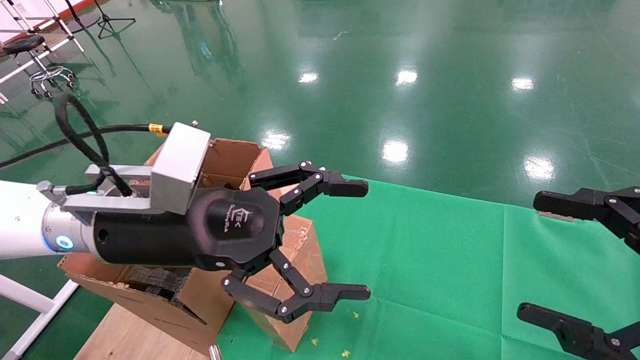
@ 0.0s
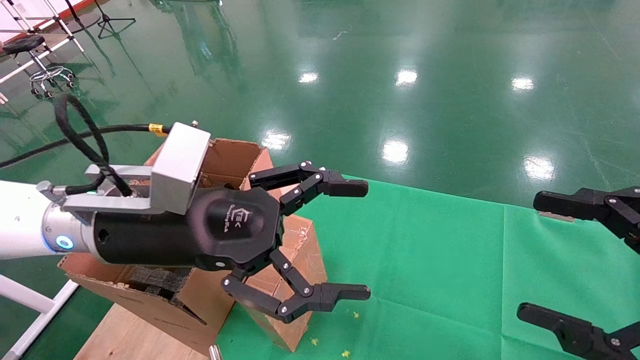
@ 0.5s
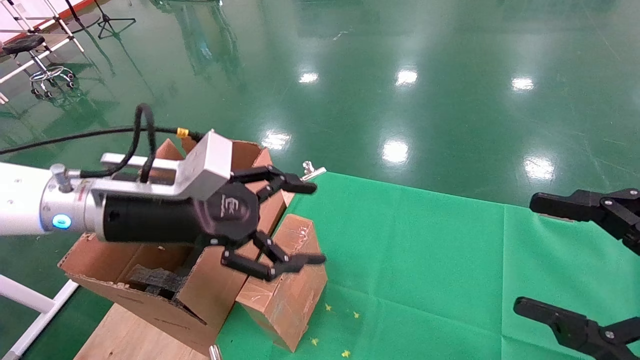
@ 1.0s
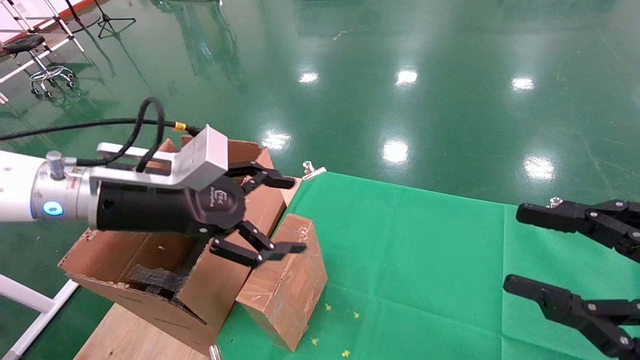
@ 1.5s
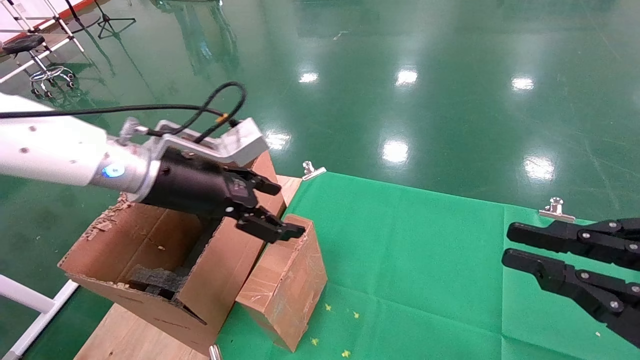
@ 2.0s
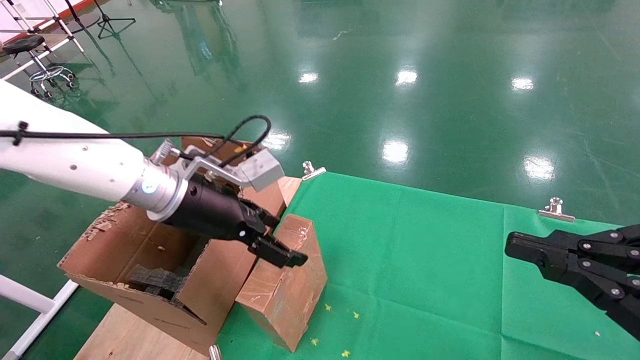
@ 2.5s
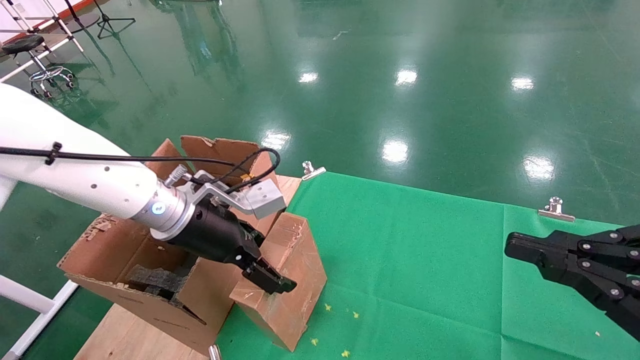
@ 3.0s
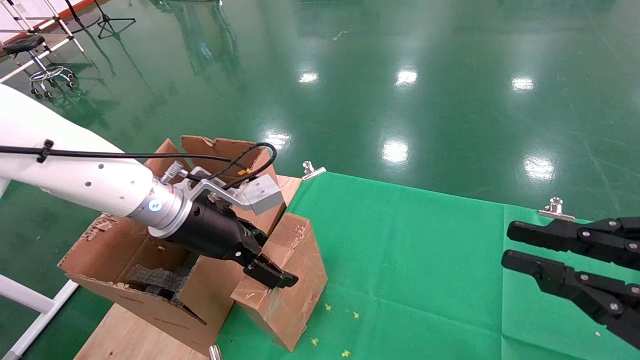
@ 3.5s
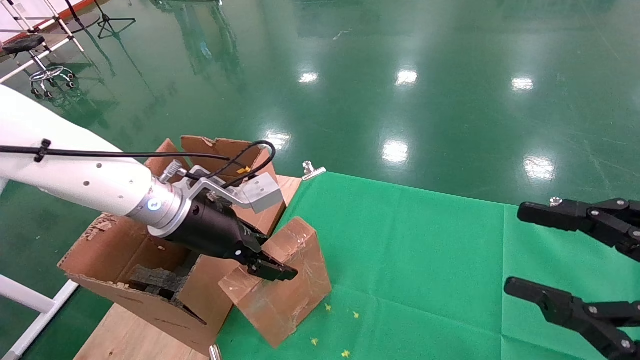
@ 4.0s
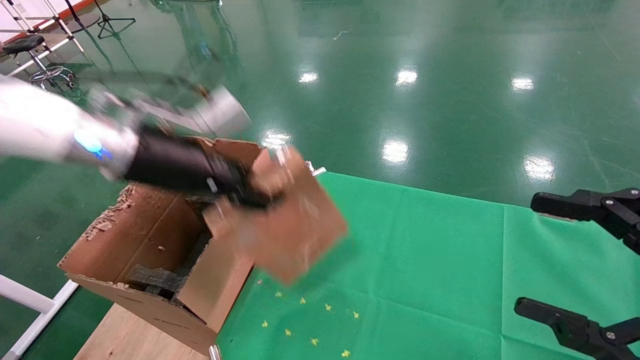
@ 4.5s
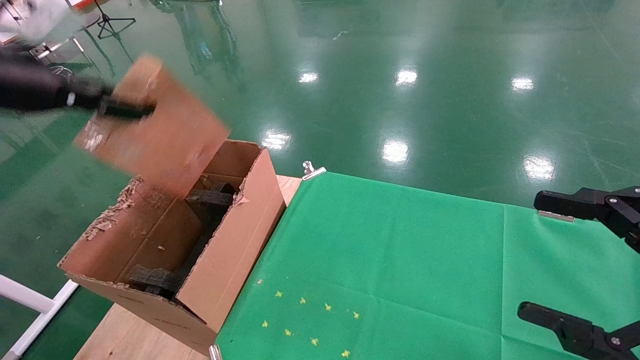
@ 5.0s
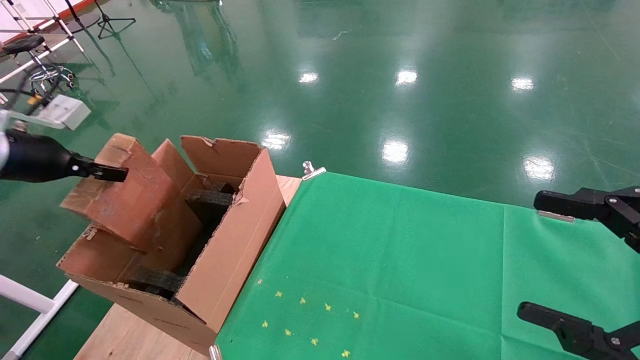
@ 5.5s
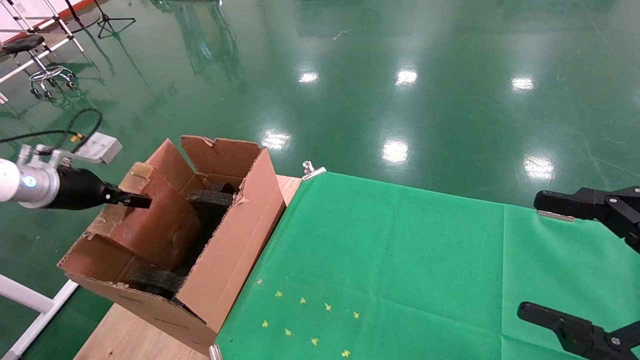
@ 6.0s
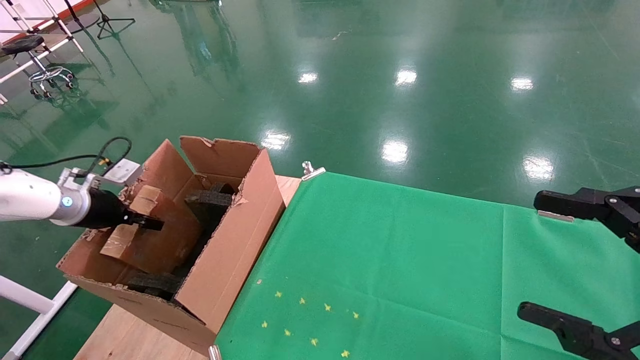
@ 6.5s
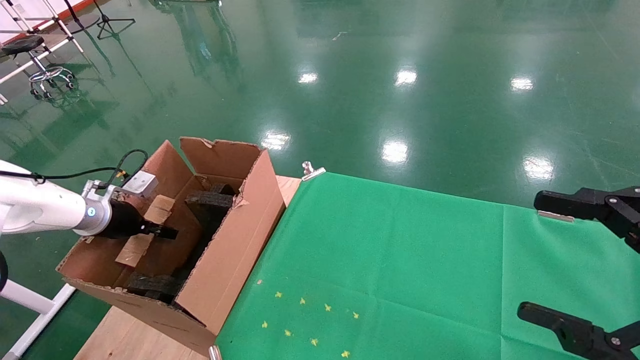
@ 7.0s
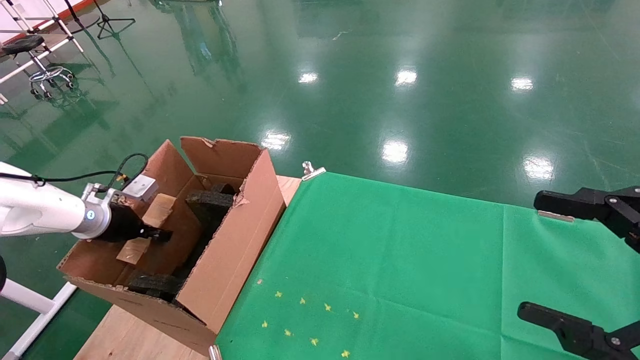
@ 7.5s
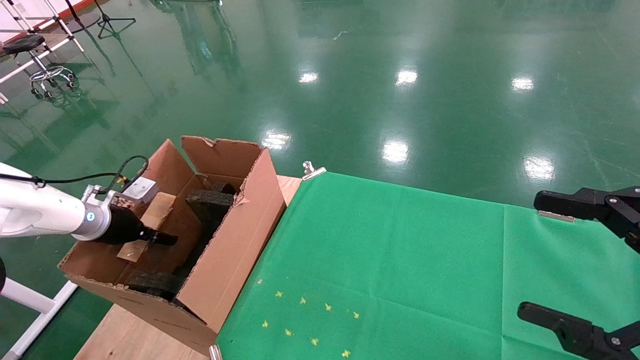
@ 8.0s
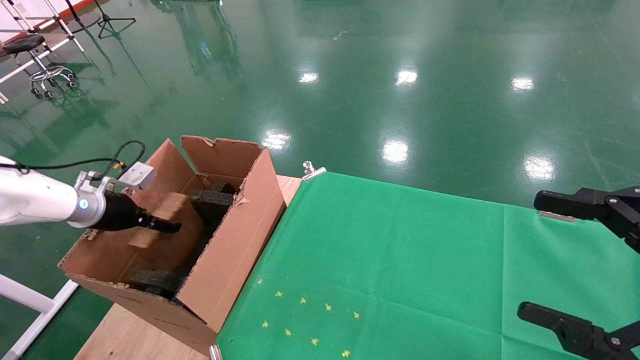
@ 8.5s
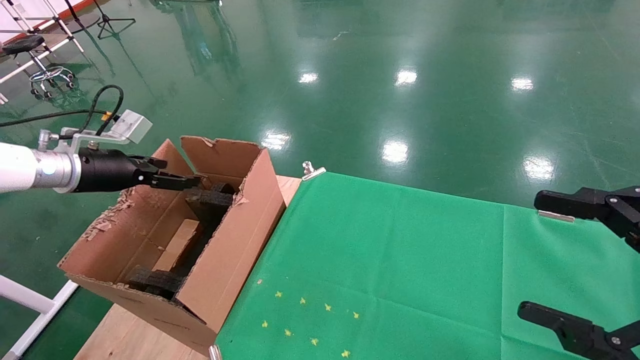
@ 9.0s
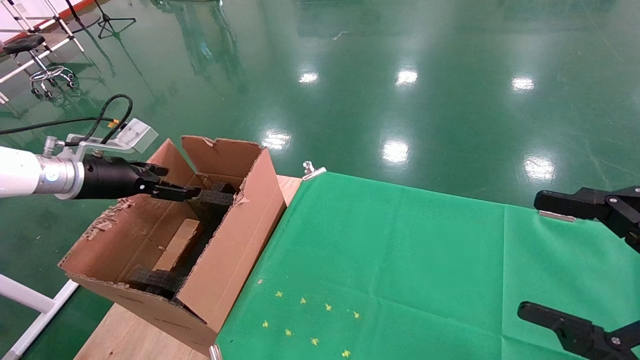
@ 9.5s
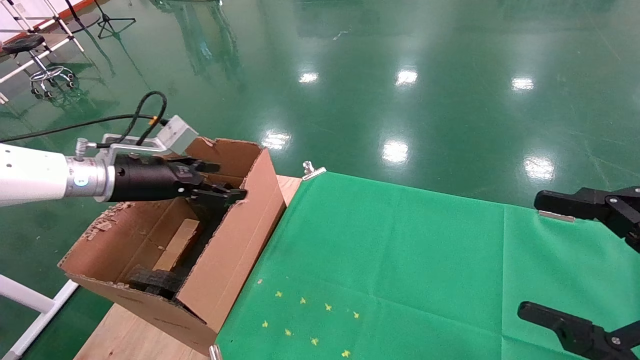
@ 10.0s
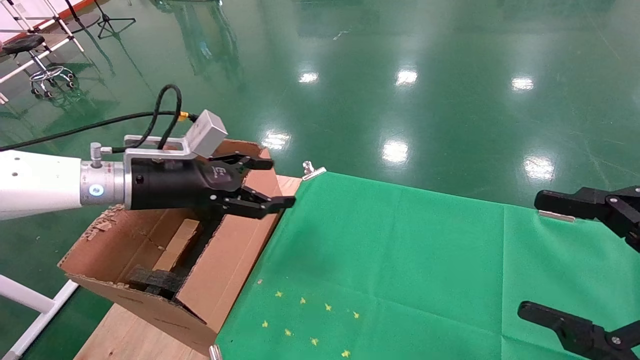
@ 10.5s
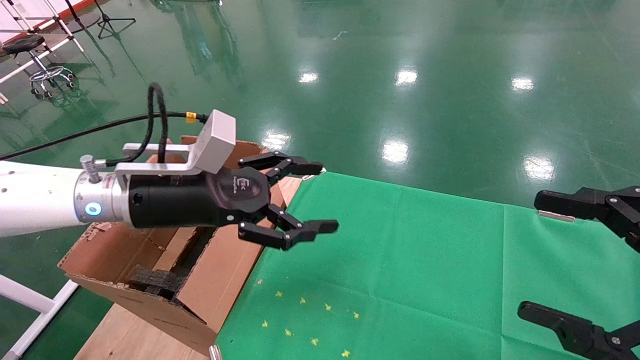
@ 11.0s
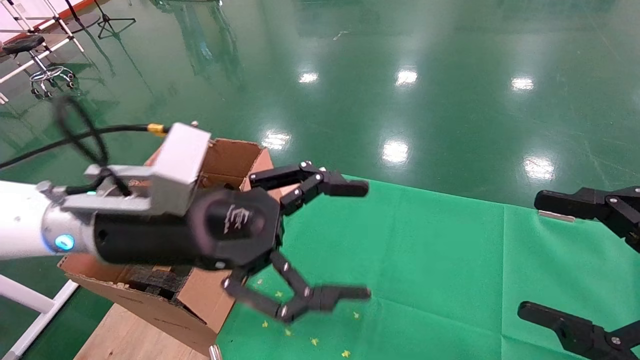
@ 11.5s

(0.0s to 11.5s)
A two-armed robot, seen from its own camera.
Task of the whole recording: using a robotic arm to pick up a cardboard box and palace it the carton.
Step, 1.0s - 4.0s: Pick up the mouse and the power cord paper box.
Step, 4.5s - 9.0s: Place the mouse and the power cord paper box into the container.
0.0s - 2.0s: The left gripper is displaced forward by about 10 cm; the right gripper closes its fingers.
2.0s - 4.0s: The left gripper closes.
4.0s - 6.0s: The left gripper heads to the left, covering some 25 cm, and closes up; the right gripper opens its fingers.
6.0s - 7.5s: The left gripper shifts some 10 cm downward.
7.5s - 9.5s: The left gripper moves upward, some 10 cm, and opens up.
9.5s - 11.5s: The left gripper travels to the right and backward by roughly 25 cm.

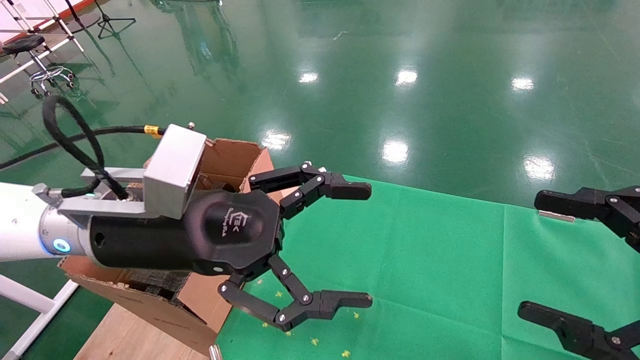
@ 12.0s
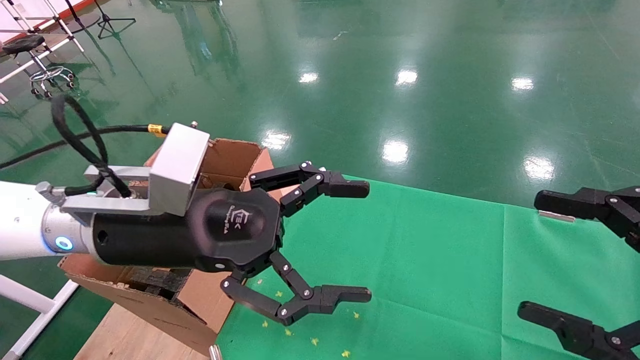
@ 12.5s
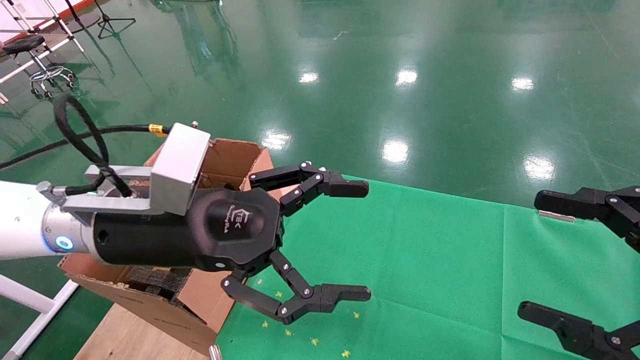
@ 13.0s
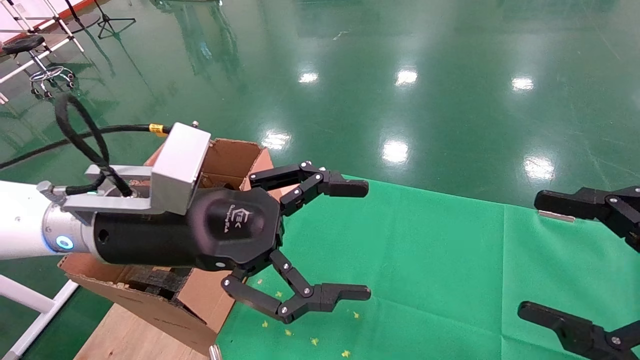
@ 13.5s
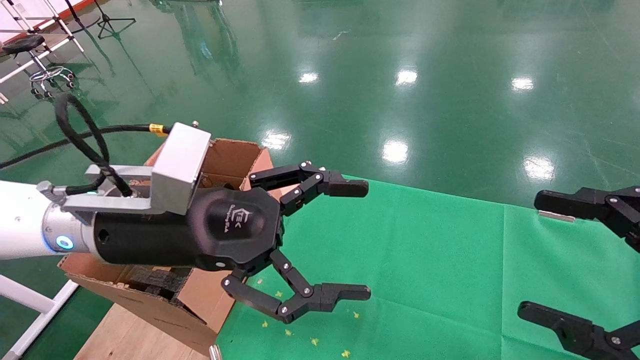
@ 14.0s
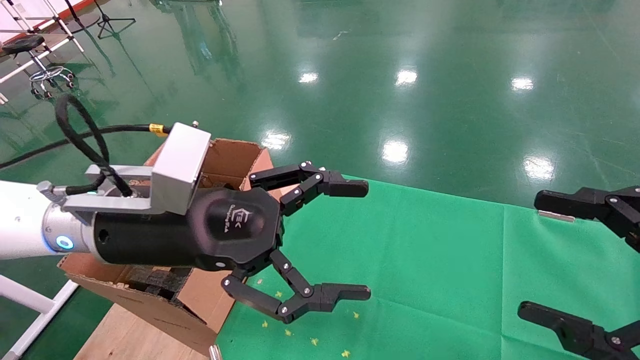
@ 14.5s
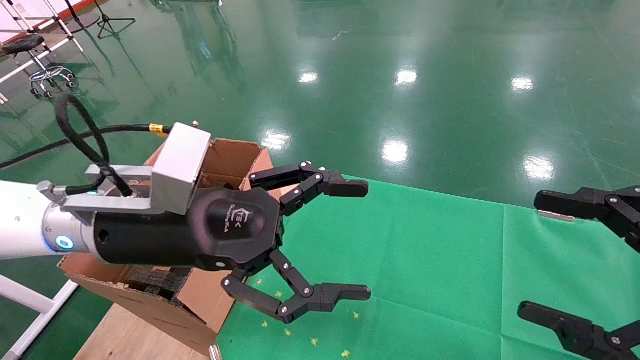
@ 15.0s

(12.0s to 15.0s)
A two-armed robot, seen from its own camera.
Task of the whole recording: using a robotic arm to pick up a cardboard box and palace it the carton.
12.0s - 15.0s: Both grippers stay about where they are.
